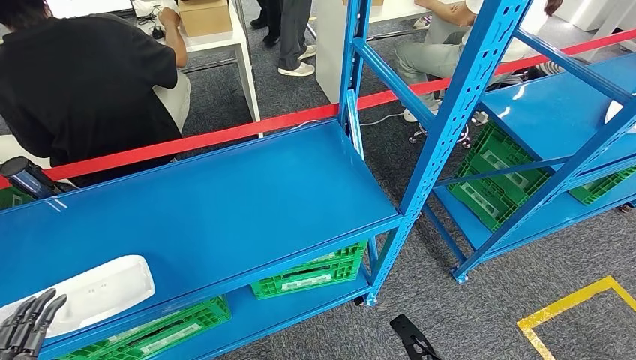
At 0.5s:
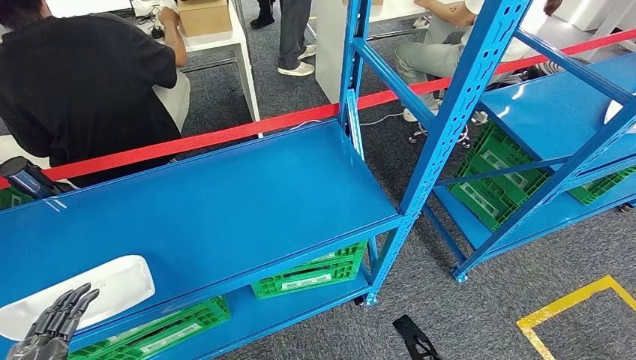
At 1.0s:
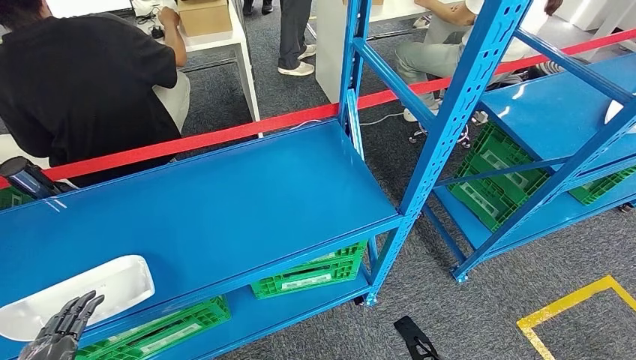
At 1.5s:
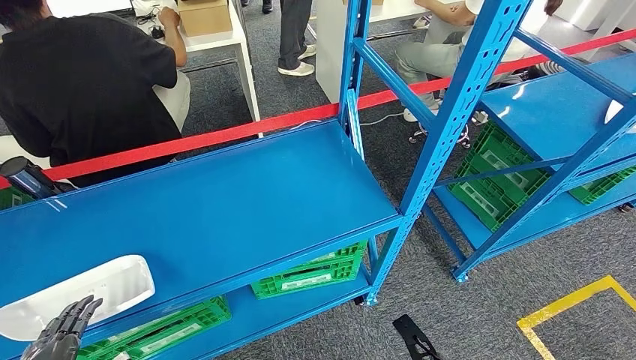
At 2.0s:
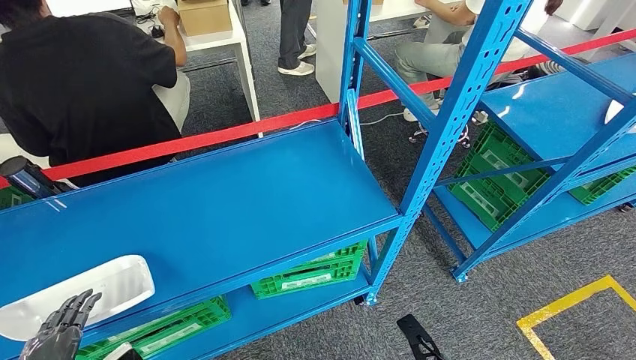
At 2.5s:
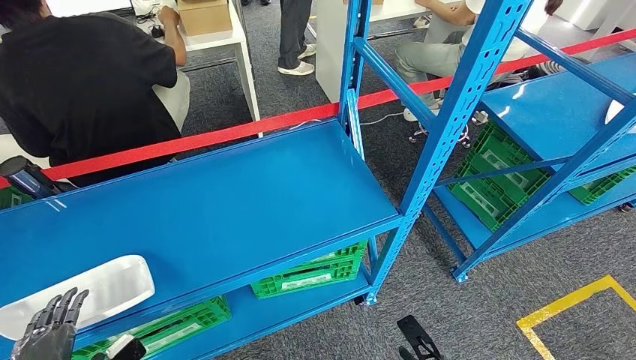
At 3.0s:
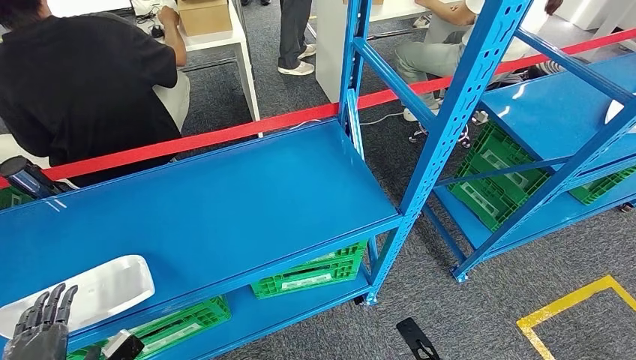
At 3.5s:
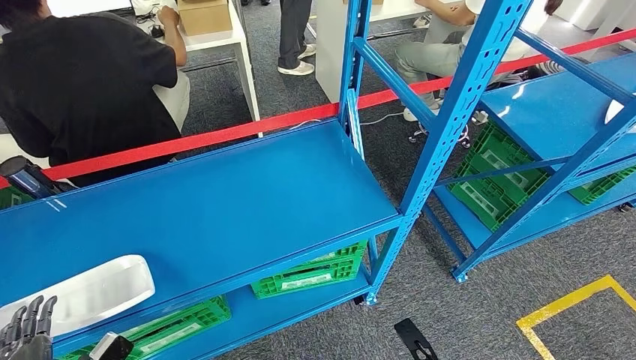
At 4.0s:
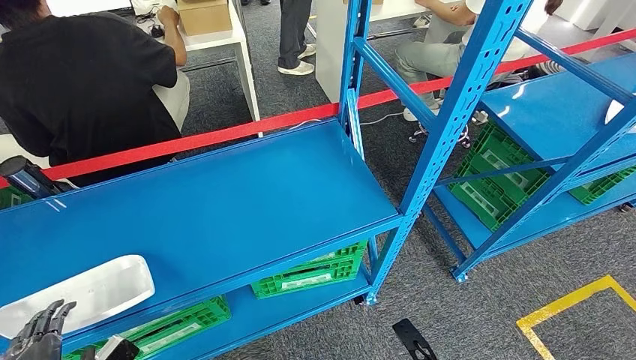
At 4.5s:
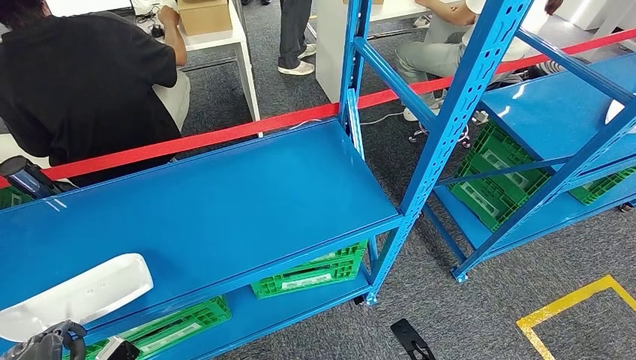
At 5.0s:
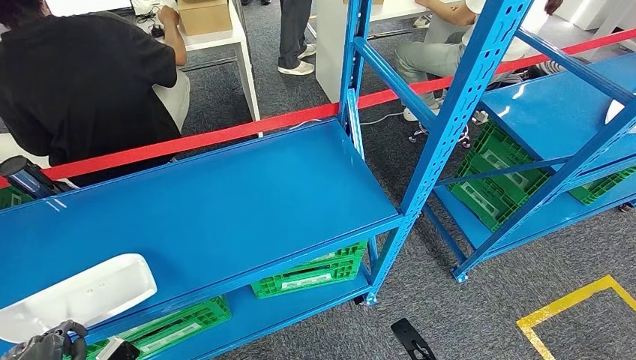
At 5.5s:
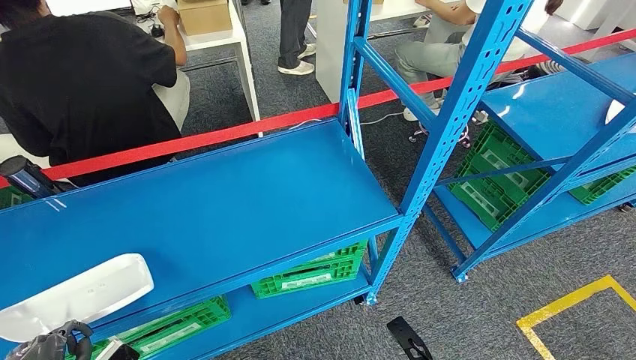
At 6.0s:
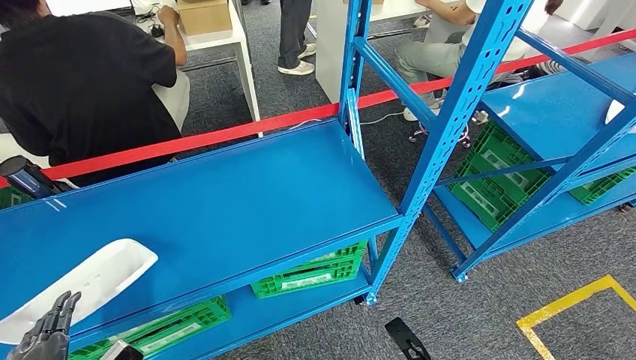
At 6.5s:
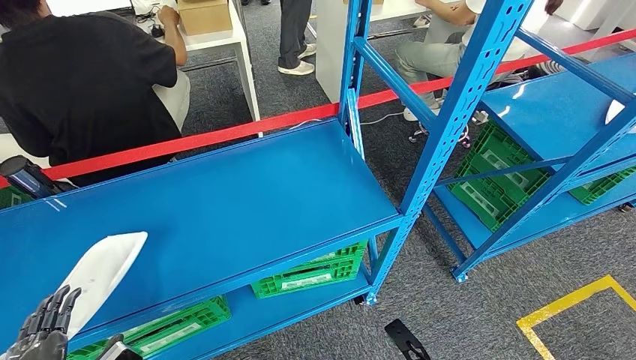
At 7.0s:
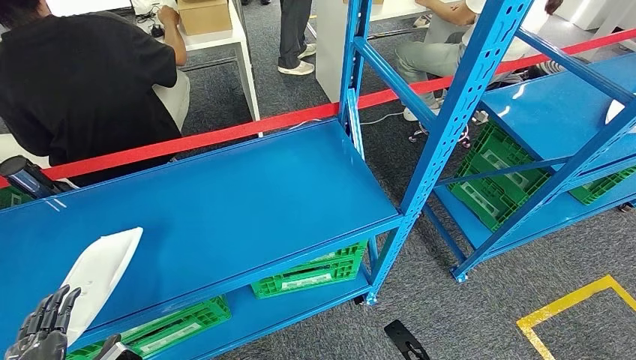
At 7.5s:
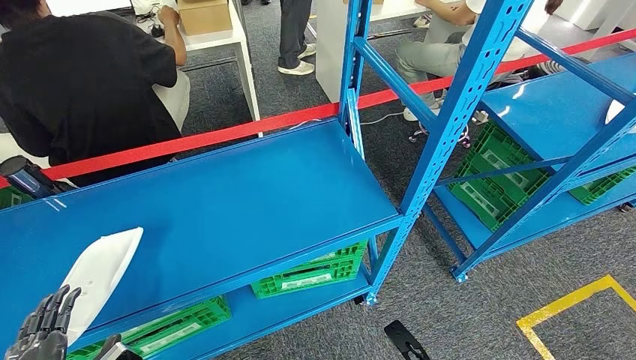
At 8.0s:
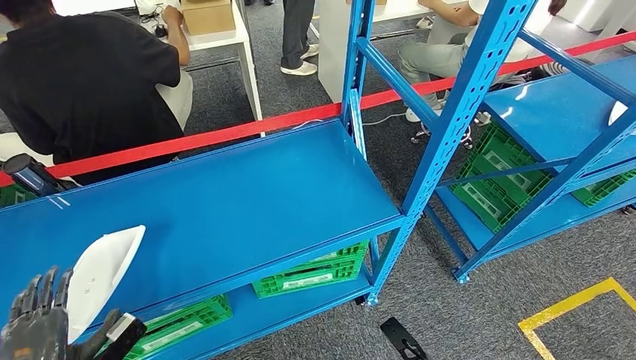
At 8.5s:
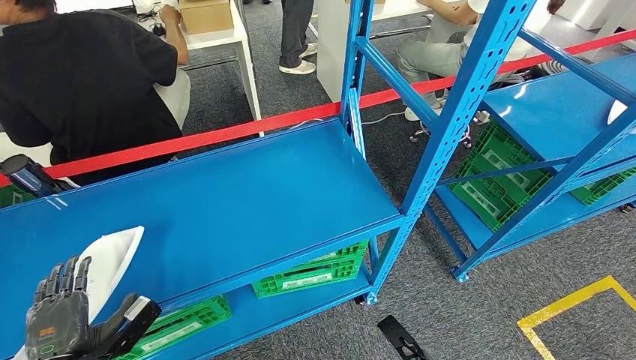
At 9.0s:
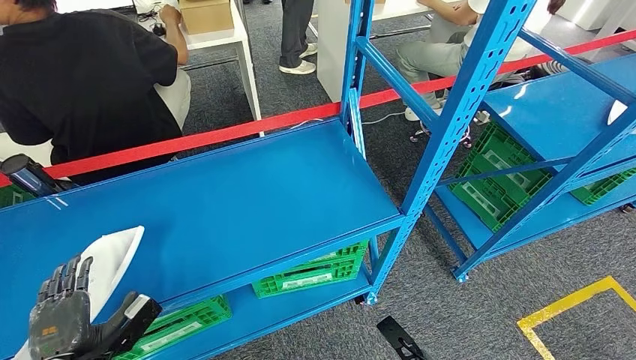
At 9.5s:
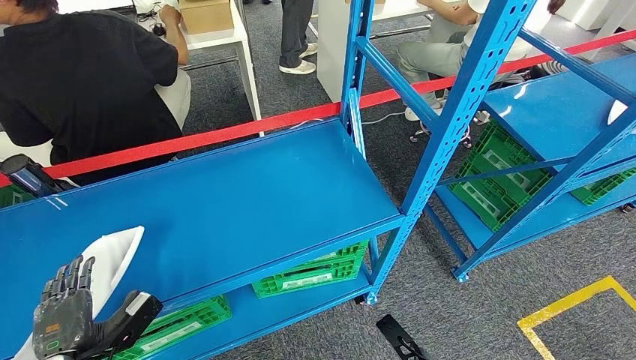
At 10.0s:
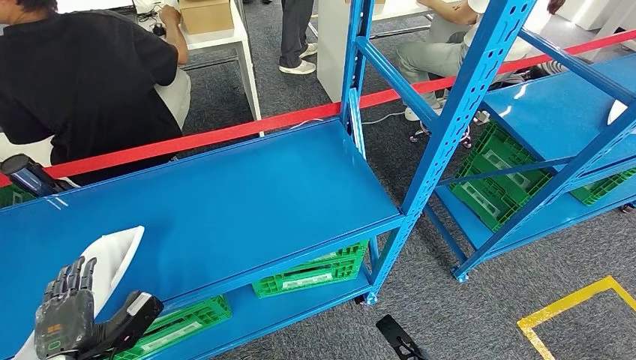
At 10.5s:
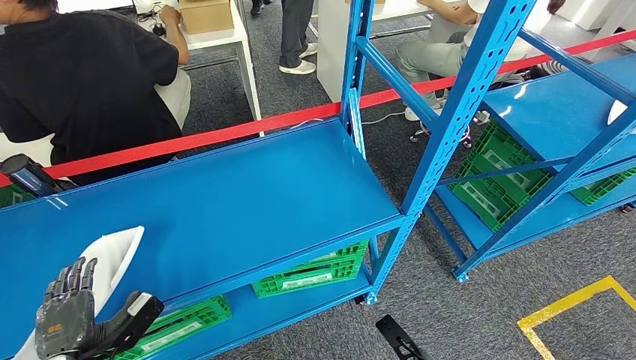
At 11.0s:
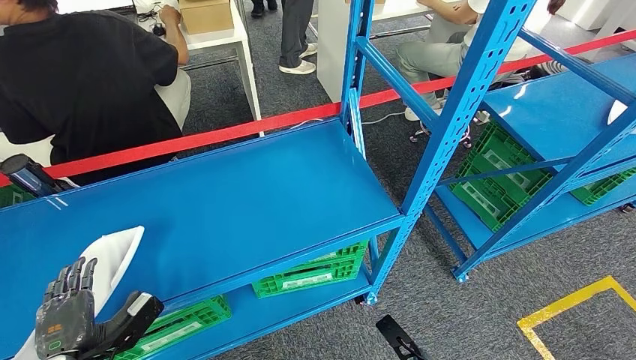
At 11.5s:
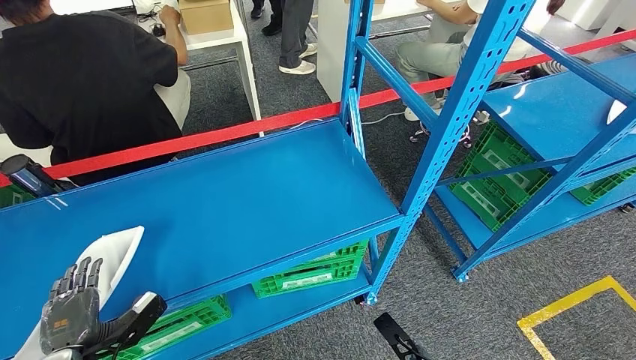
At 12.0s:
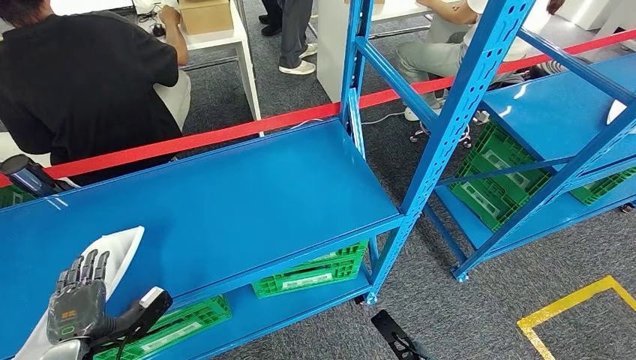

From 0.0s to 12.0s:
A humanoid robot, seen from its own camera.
From 0.0s to 2.0s: The left hand is displaced downward and forward by roughly 10 cm.
From 4.0s to 8.0s: There are only small adjustments of the hands.
From 8.0s to 10.0s: The hands stay close to where they were, moving slightly.
From 10.0s to 12.0s: There are only small adjustments of the hands.

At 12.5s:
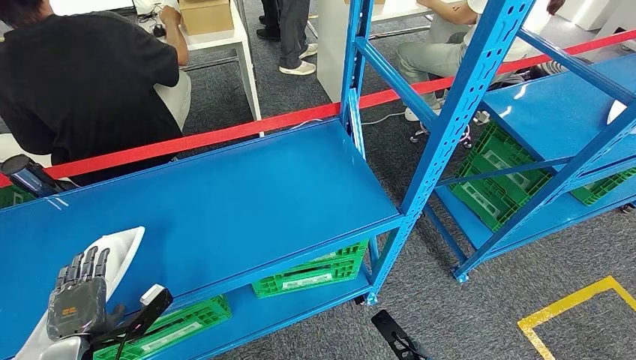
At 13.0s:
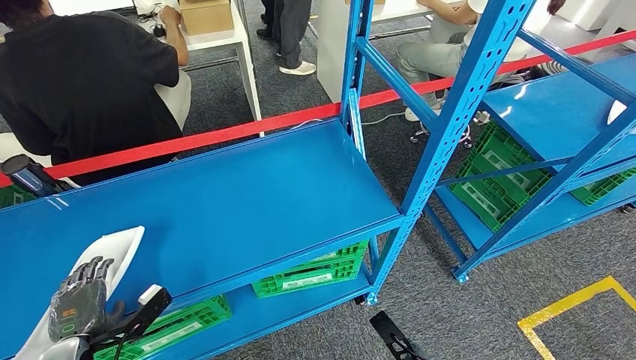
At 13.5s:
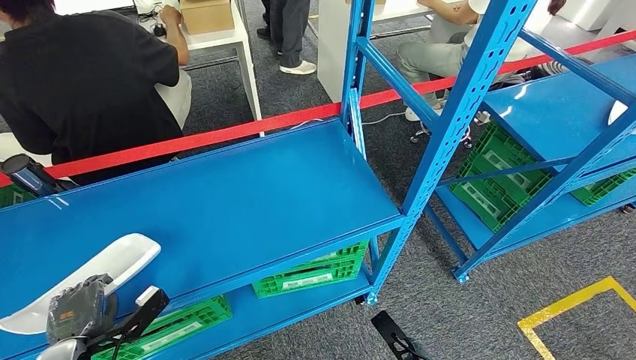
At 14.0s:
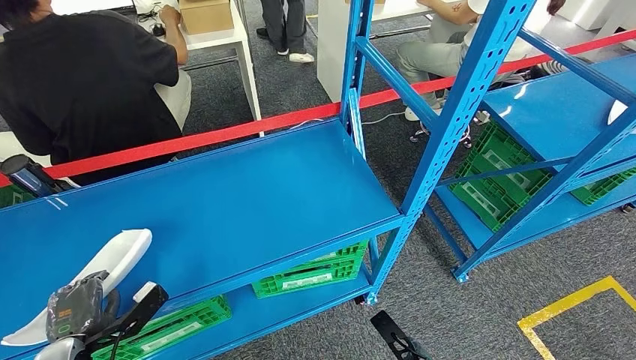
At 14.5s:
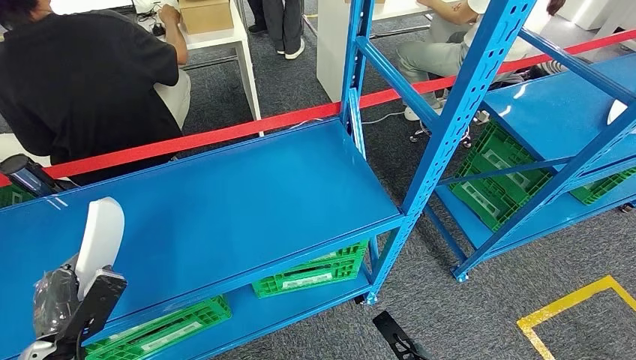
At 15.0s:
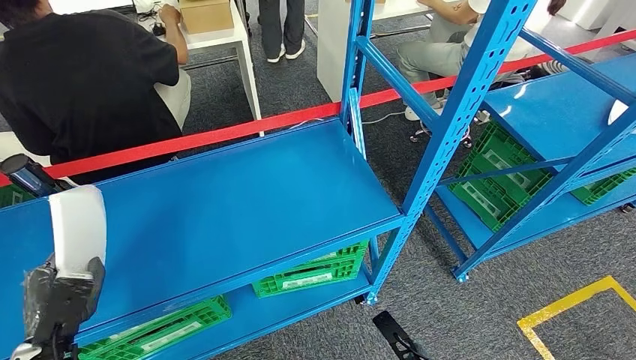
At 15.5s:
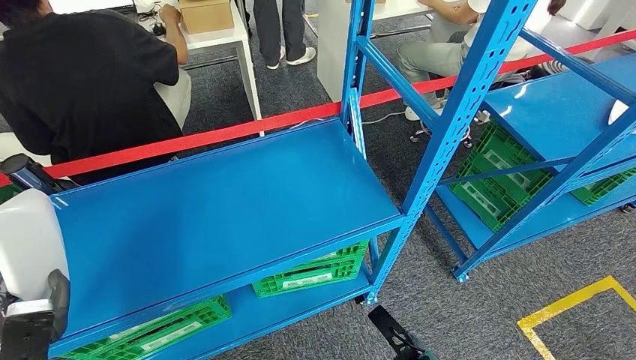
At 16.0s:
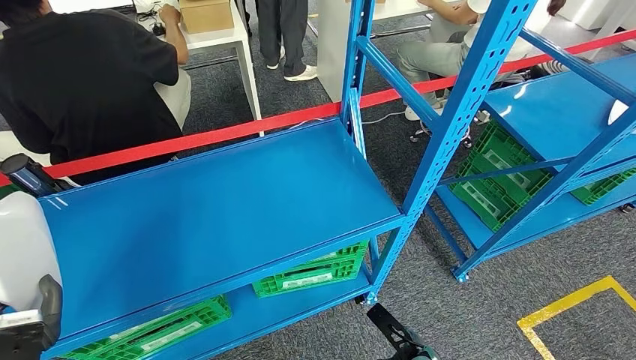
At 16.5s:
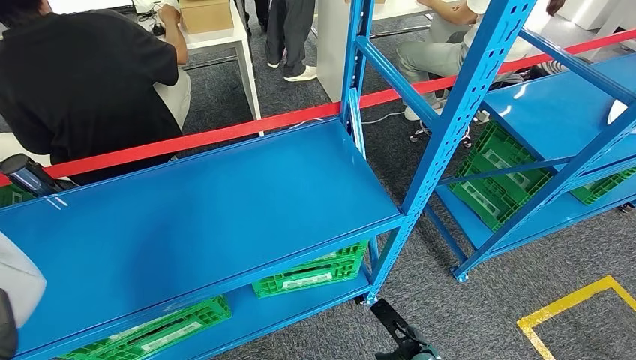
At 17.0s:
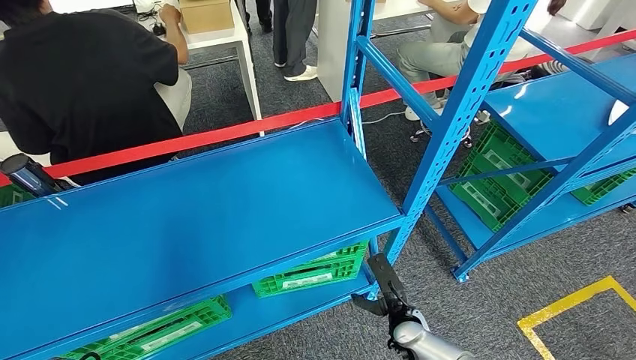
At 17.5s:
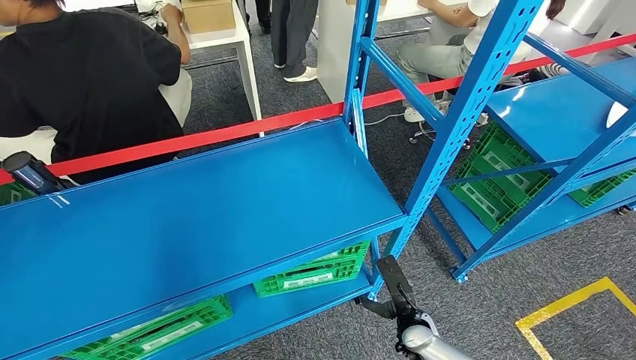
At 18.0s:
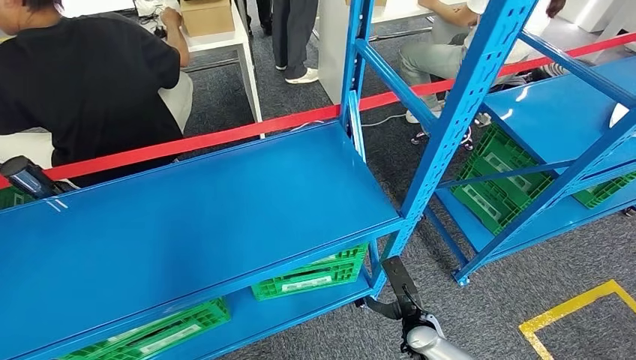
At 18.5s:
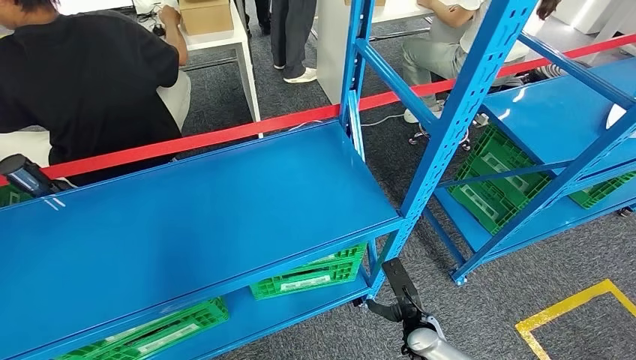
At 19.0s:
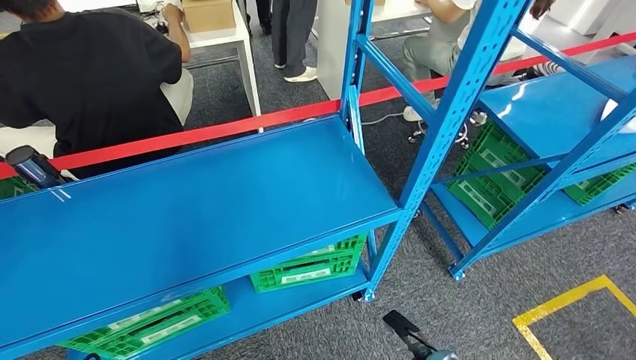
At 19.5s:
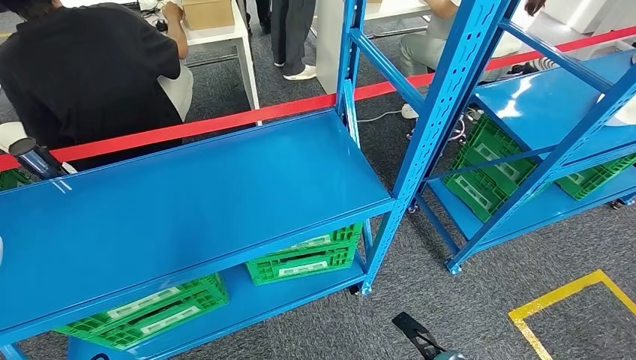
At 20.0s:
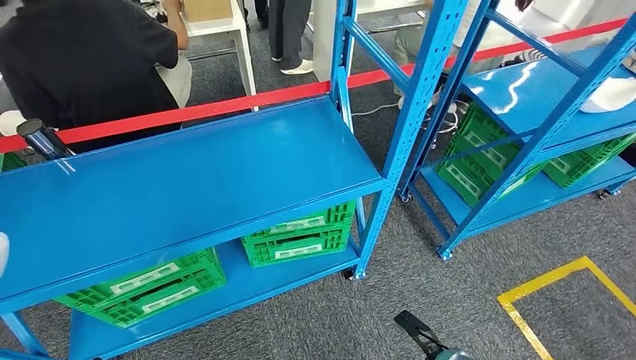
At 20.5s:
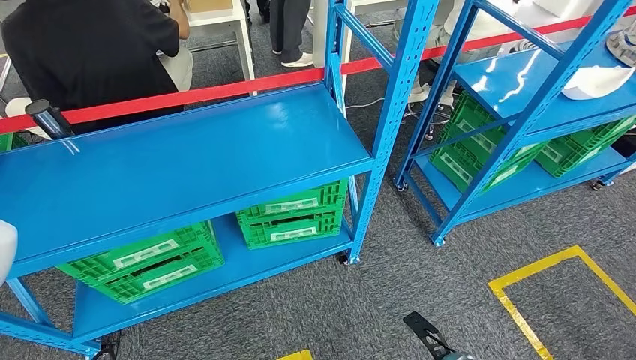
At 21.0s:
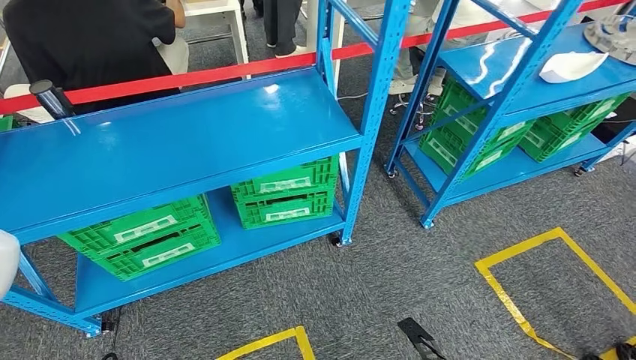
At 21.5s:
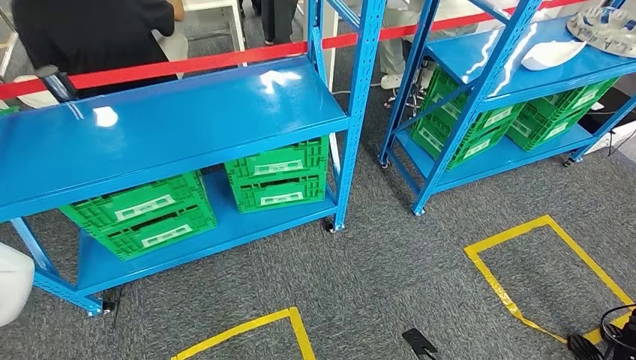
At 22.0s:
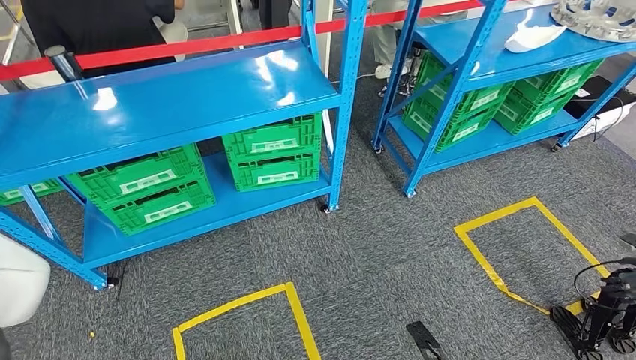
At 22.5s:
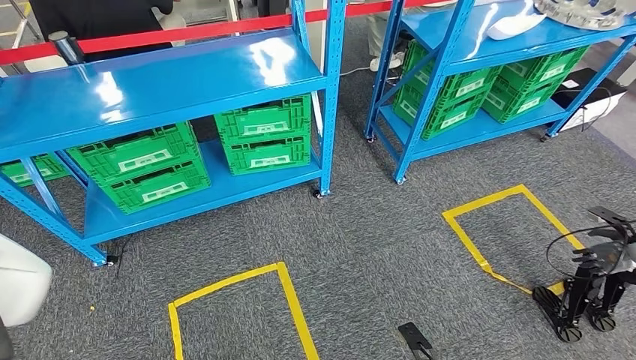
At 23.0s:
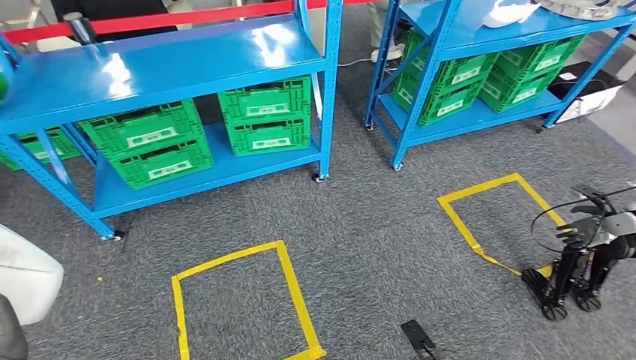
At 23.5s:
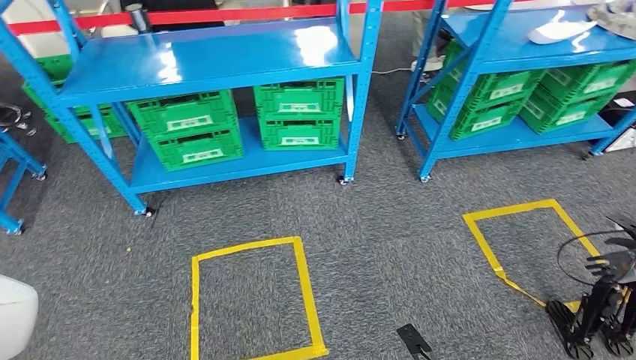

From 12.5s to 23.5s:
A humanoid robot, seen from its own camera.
Step, from 12.5s to 16.0s: Take small components from the rack.
From 16.0s to 18.0s: The left hand is displaced upward by some 10 cm, while the right hand goes roughly 5 cm forward.
